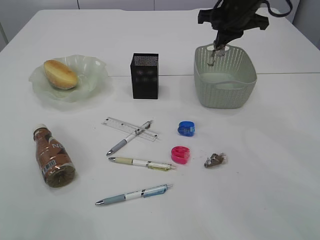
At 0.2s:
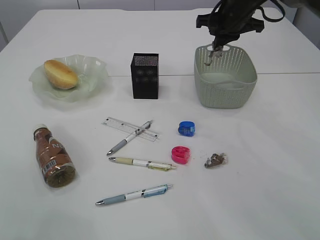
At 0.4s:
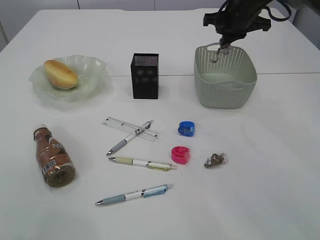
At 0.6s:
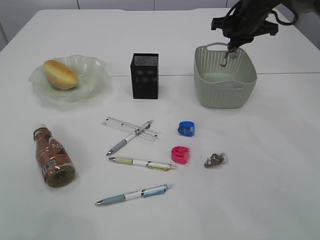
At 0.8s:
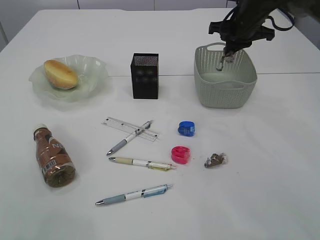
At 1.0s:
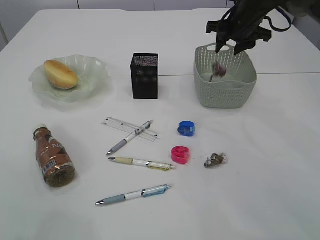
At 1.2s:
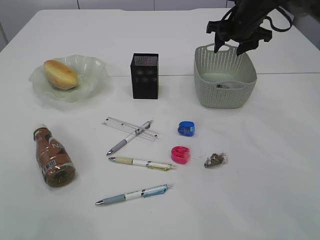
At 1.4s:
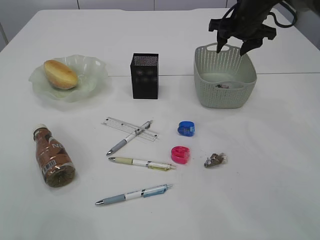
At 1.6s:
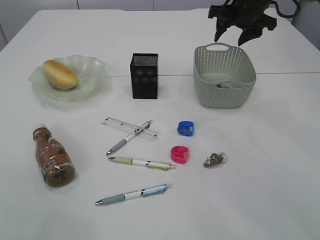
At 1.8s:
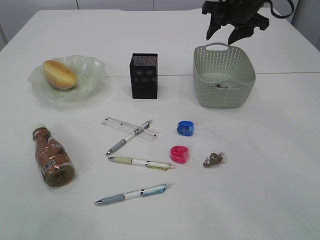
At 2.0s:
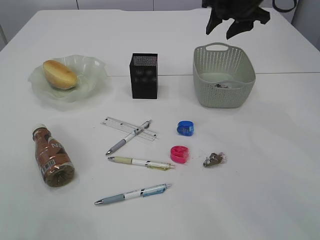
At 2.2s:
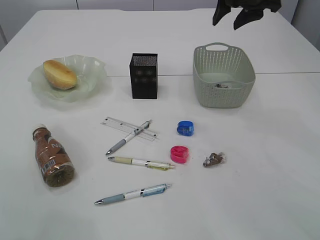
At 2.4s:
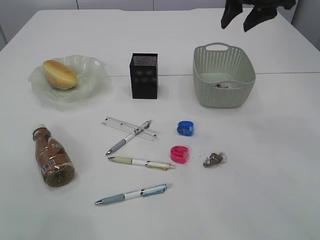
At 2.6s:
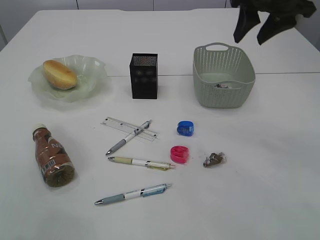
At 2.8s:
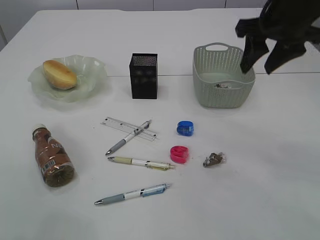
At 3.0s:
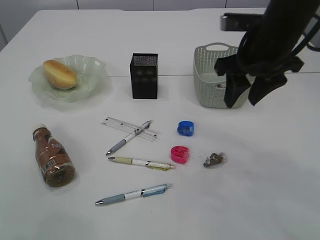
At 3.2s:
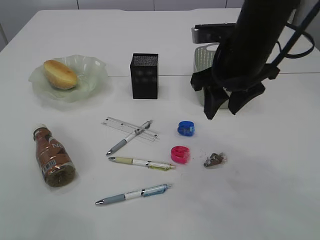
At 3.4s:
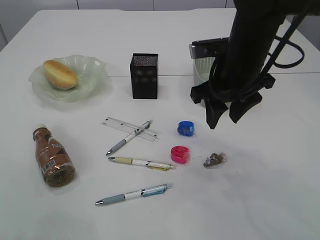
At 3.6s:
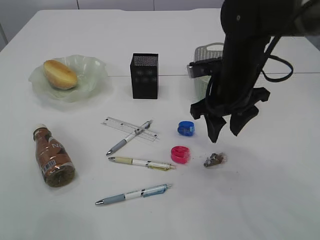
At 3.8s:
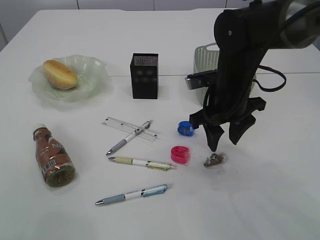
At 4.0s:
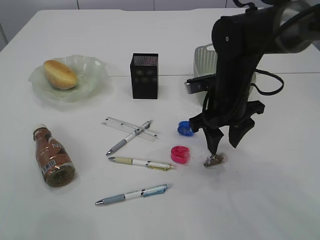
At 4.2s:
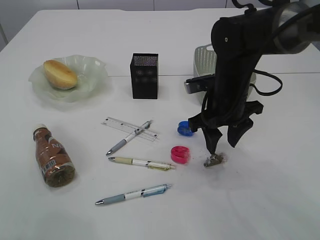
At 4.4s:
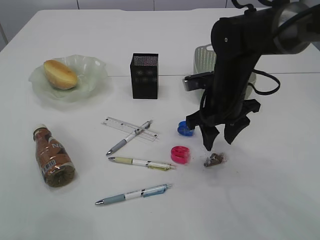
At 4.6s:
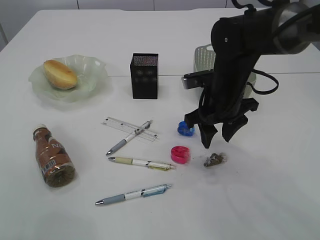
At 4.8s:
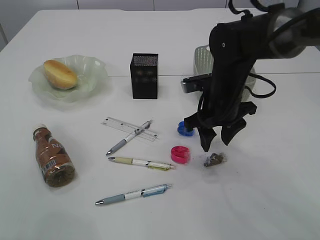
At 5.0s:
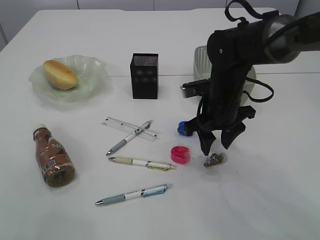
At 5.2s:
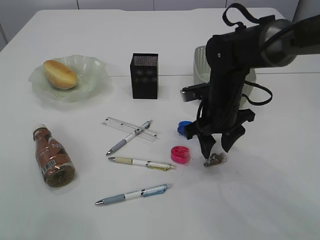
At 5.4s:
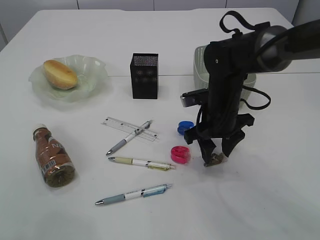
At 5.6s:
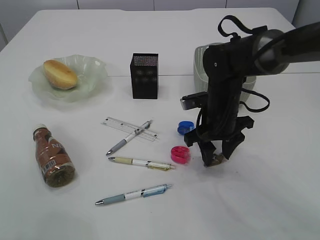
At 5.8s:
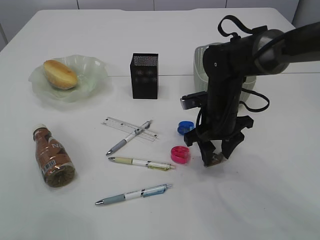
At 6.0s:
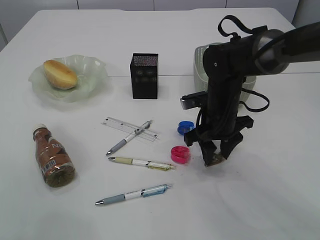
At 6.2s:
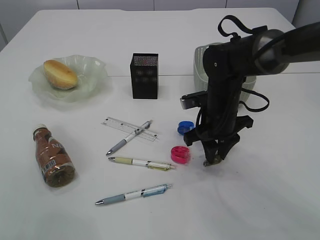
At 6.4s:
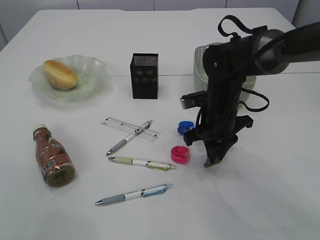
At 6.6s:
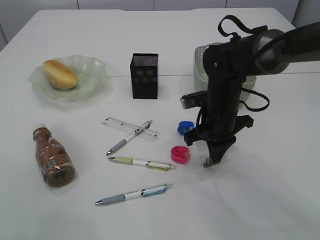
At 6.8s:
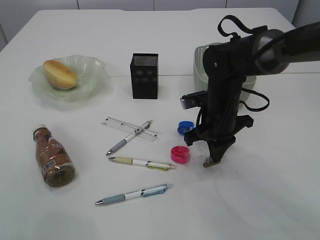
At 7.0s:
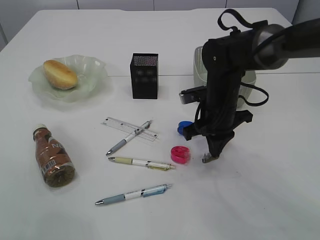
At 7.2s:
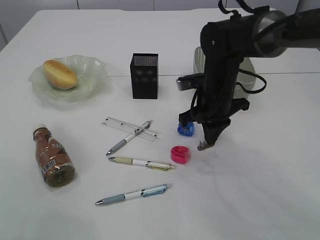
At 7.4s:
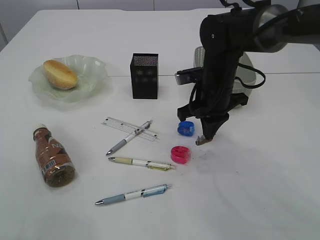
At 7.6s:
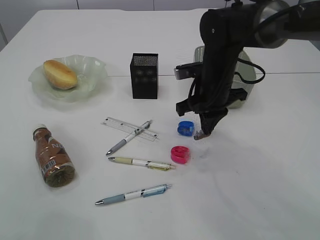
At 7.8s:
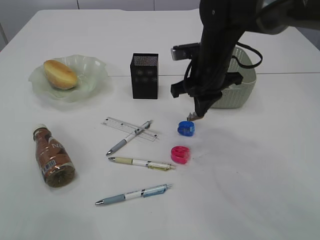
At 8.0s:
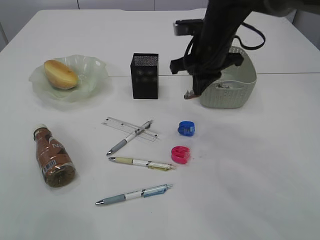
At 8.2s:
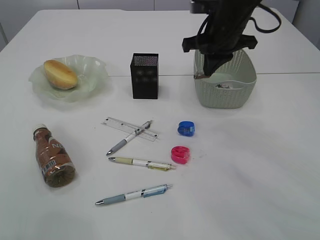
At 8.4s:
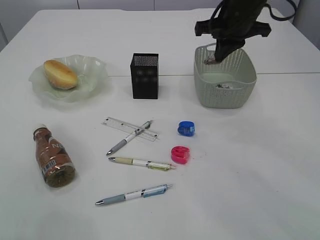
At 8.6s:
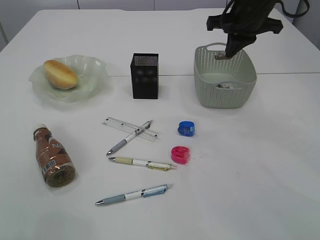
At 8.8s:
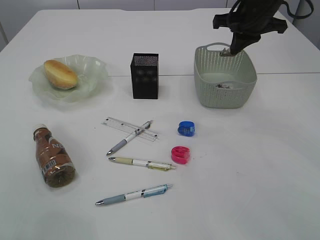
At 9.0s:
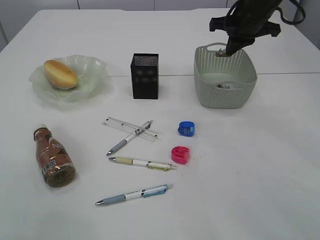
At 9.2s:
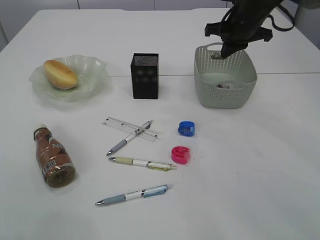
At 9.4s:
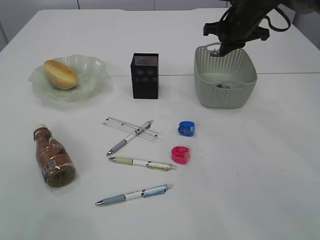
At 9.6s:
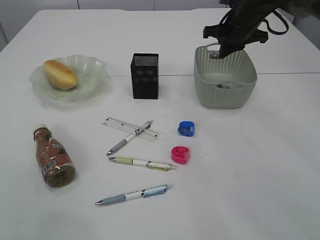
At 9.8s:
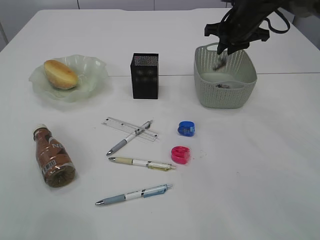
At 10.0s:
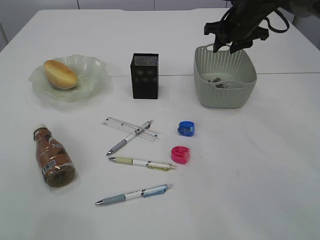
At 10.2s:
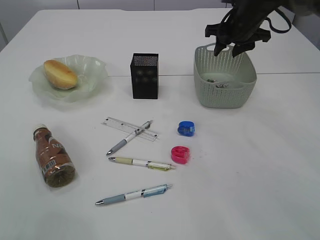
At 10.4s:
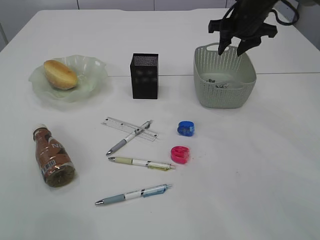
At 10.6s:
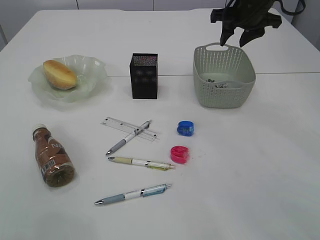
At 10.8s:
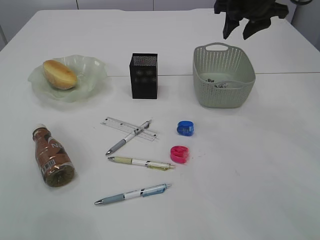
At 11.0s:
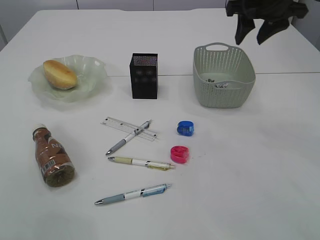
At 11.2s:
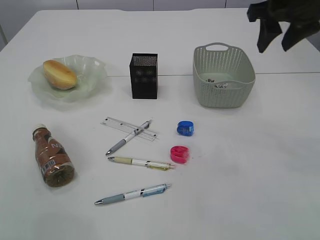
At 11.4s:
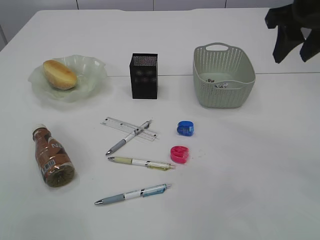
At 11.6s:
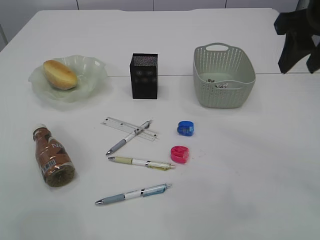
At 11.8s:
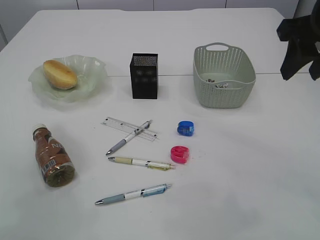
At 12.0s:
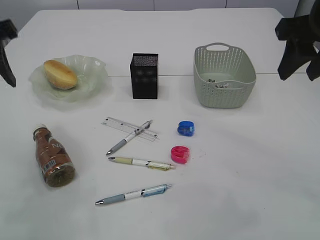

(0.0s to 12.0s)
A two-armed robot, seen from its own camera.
Step, 0.0s - 2.0s: Place the waste paper in the basket.
Step, 2.2s - 7.4s: Pick up the waste paper.
Step, 7.6s - 10.2s: Place the waste paper in the basket.
0.0s - 1.6s: The right gripper opens up.
1.6s - 3.0s: The right gripper heads backward, covering about 15 cm.
3.0s - 4.4s: The right gripper is displaced downward and to the left by some 10 cm.
4.4s - 6.0s: The grippers move only a little.
6.0s - 7.6s: The right gripper shifts by approximately 5 cm, and closes its fingers.
7.6s - 9.0s: The right gripper heads upward, to the right and forward, covering approximately 15 cm.
9.0s - 10.4s: The right gripper opens its fingers.
10.4s - 12.0s: The left gripper shifts some 10 cm downward and forward. Meanwhile the right gripper is displaced backward and upward by approximately 25 cm.

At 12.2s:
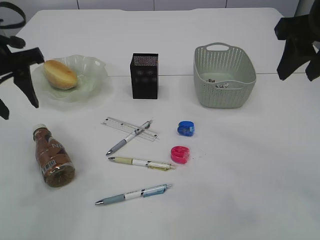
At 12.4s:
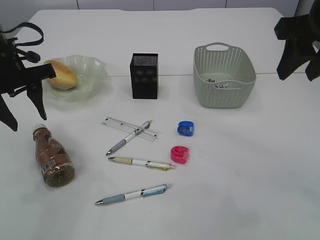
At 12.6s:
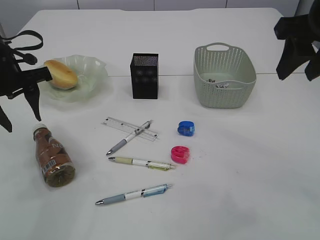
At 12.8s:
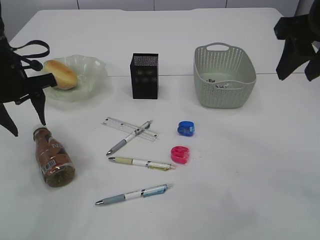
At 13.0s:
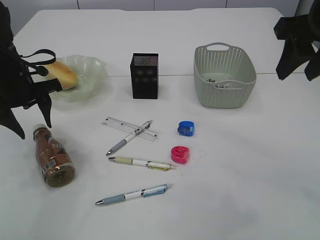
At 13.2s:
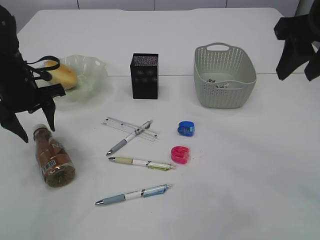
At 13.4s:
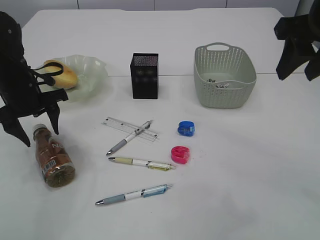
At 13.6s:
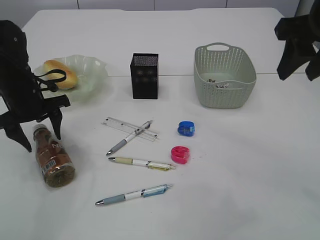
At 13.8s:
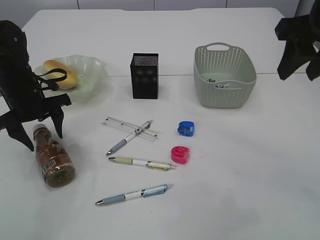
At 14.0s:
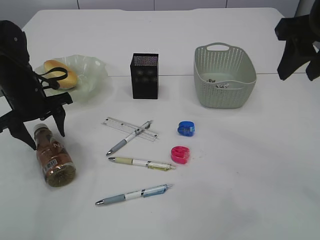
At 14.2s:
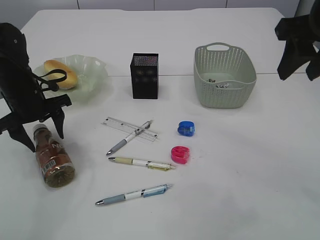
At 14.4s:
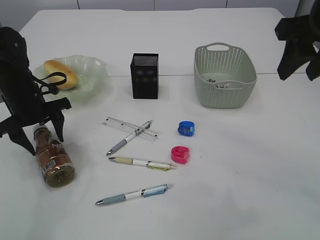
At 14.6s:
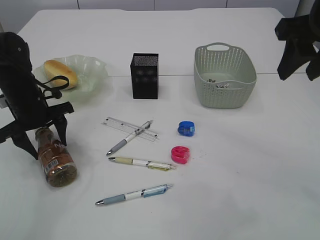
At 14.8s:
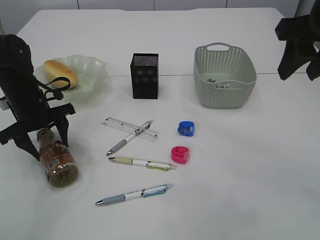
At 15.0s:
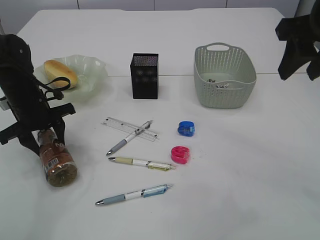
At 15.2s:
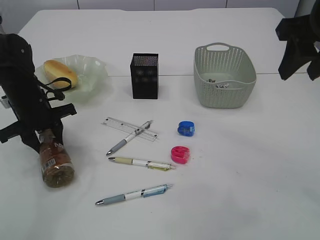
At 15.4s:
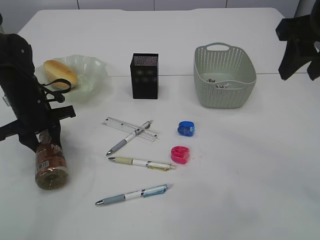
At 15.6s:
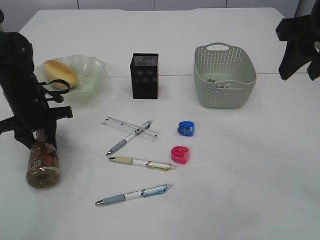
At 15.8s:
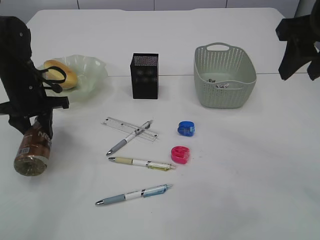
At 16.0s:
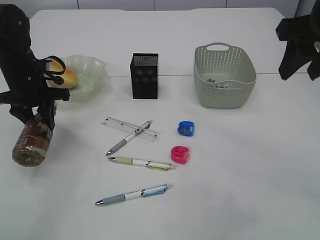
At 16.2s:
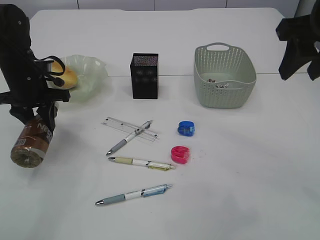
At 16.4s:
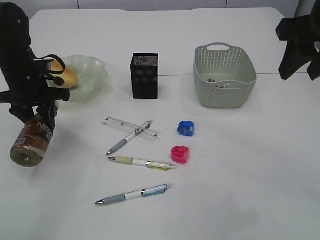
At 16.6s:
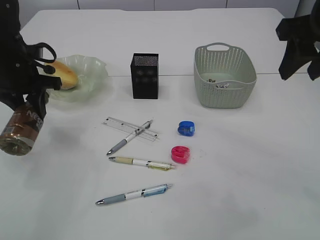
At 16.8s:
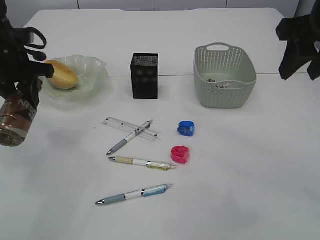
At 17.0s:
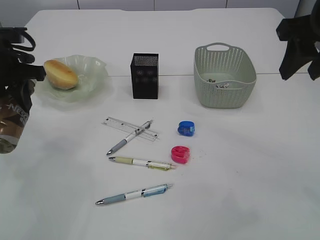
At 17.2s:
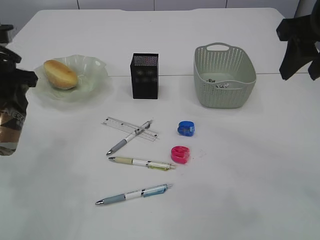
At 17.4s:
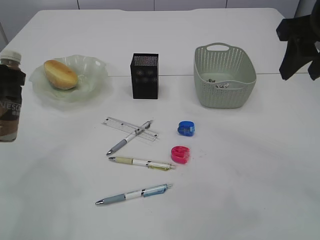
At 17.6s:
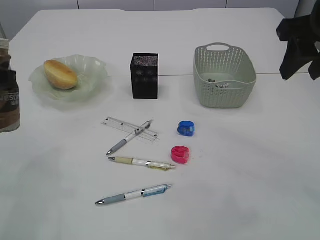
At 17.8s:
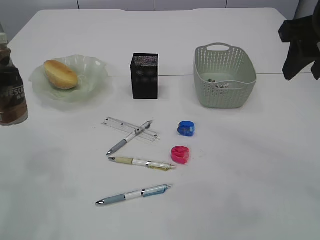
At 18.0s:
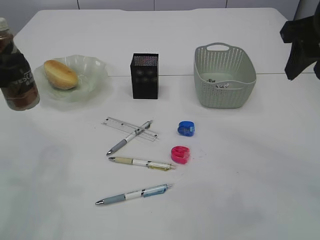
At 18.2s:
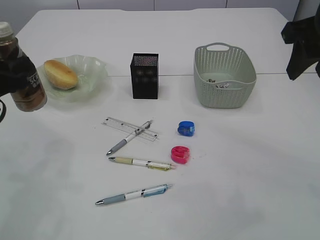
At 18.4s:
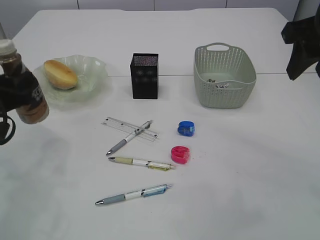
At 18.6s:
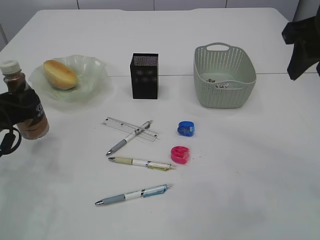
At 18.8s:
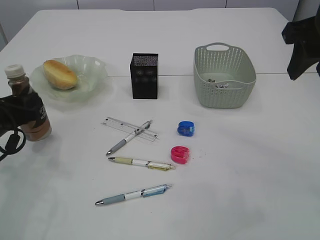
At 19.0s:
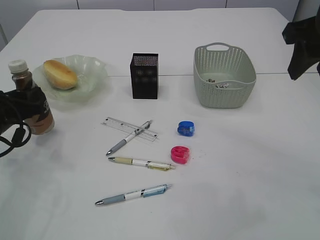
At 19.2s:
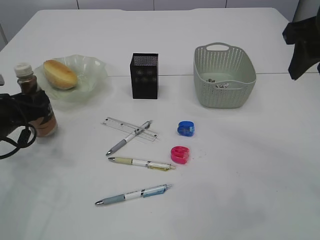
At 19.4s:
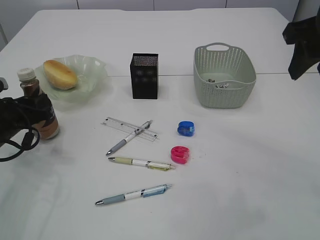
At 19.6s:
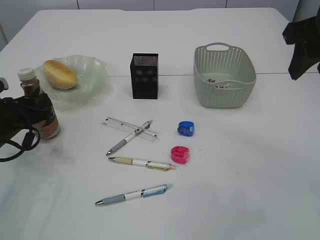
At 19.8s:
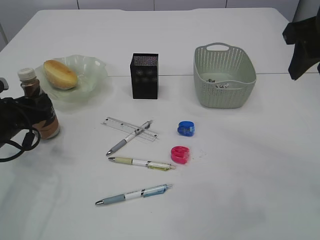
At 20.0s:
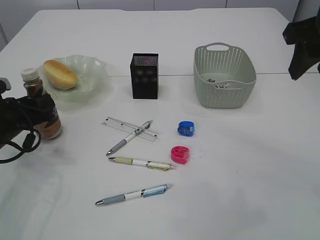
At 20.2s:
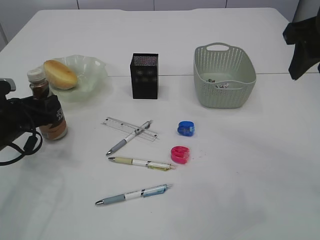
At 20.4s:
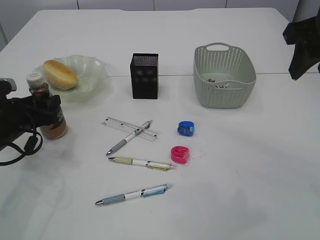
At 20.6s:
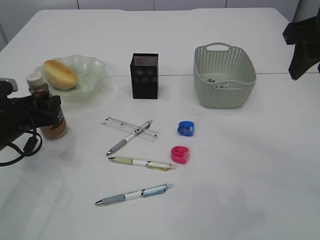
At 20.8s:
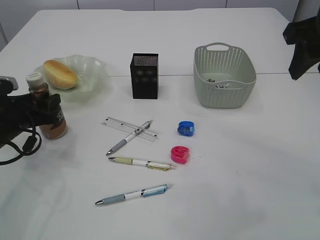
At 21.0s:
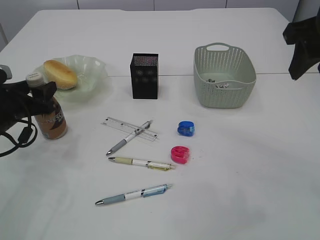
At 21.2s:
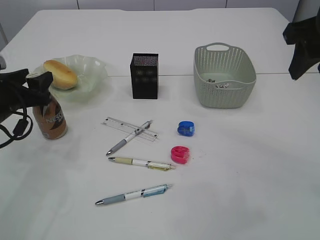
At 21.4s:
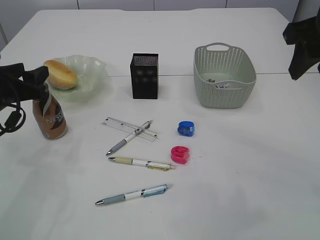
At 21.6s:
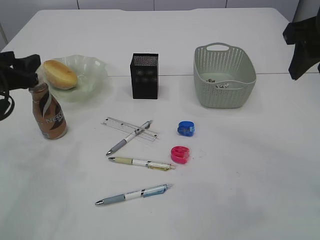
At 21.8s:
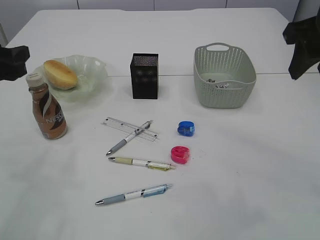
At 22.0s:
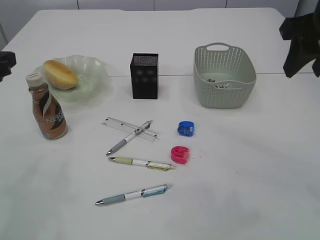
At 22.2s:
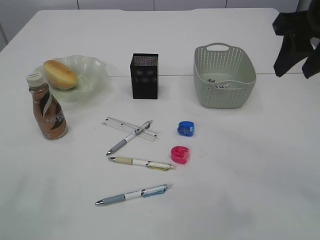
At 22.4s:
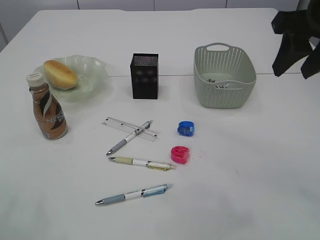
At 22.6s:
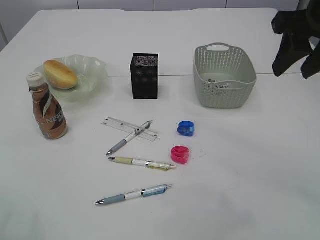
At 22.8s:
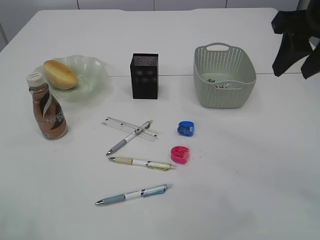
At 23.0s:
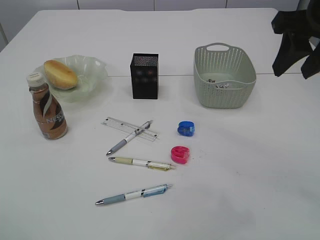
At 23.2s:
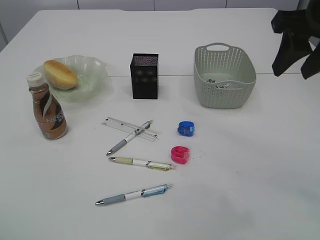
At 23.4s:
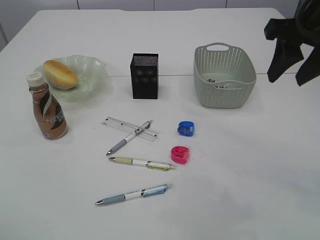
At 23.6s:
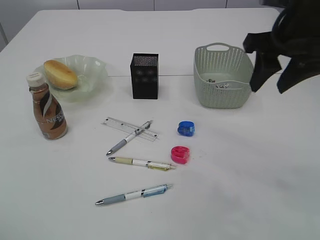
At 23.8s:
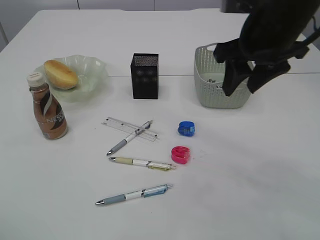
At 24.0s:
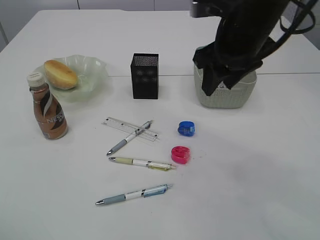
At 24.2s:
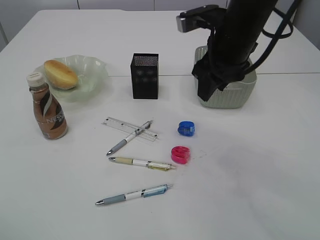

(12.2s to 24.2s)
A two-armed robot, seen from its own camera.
Step, 12.2s - 16.6s: Pick up the bottle with the left arm.
Step, 16.8s - 21.8s: Place the bottle.
12.2s - 13.8s: The left gripper is displaced downward by some 10 cm.
13.8s - 15.2s: The left gripper closes.
15.2s - 16.6s: The left gripper travels upward by approximately 10 cm.
16.6s - 18.2s: The left gripper shifts approximately 10 cm backward.
18.2s - 19.8s: The left gripper shifts about 10 cm downward.
19.8s - 21.2s: The left gripper opens up.
21.2s - 22.6s: The left gripper heads upward and backward, covering some 25 cm.
22.6s - 24.2s: The right gripper heads to the left, forward and downward, covering approximately 15 cm.
